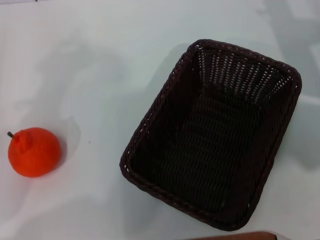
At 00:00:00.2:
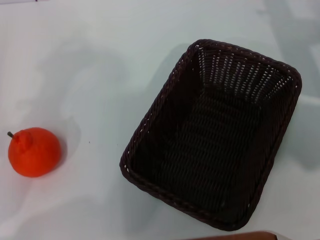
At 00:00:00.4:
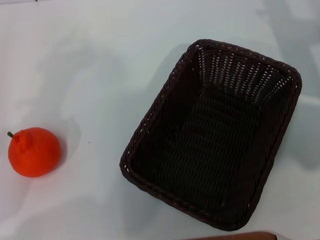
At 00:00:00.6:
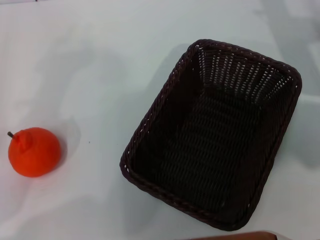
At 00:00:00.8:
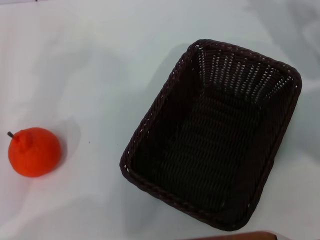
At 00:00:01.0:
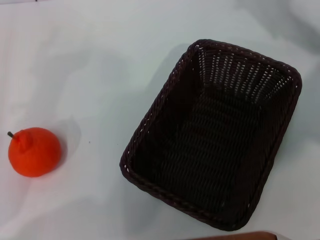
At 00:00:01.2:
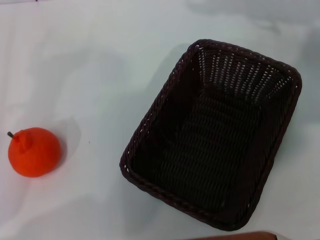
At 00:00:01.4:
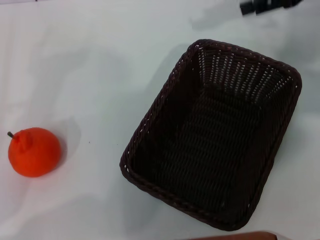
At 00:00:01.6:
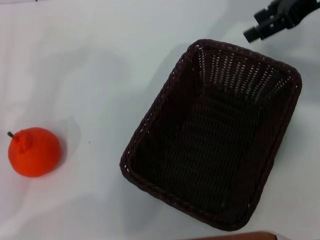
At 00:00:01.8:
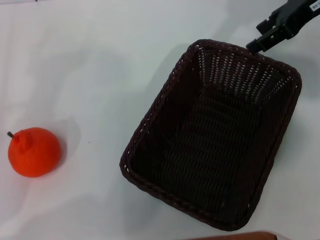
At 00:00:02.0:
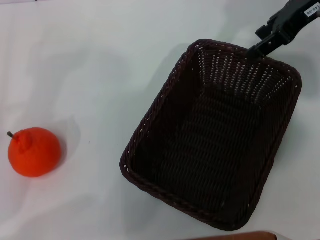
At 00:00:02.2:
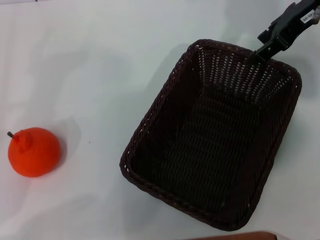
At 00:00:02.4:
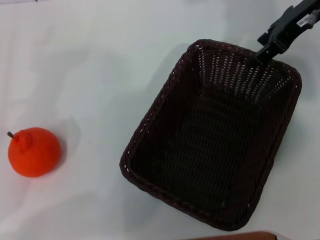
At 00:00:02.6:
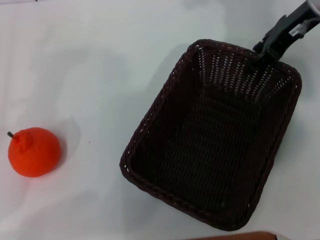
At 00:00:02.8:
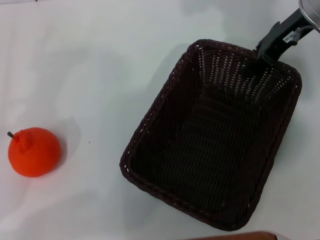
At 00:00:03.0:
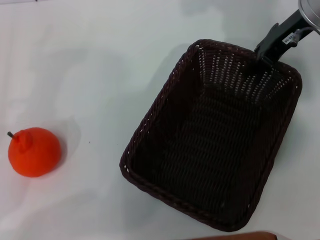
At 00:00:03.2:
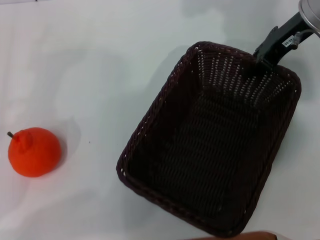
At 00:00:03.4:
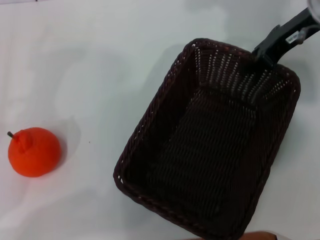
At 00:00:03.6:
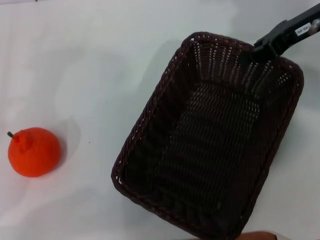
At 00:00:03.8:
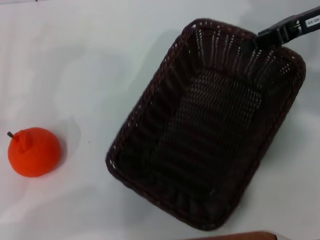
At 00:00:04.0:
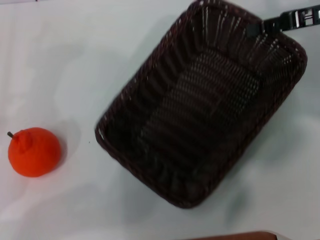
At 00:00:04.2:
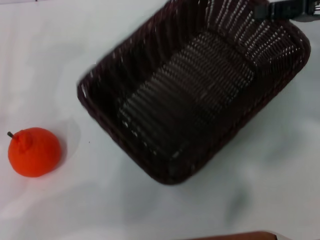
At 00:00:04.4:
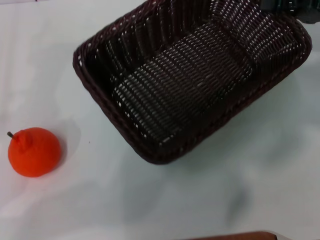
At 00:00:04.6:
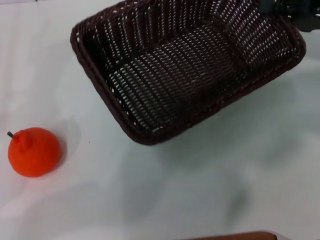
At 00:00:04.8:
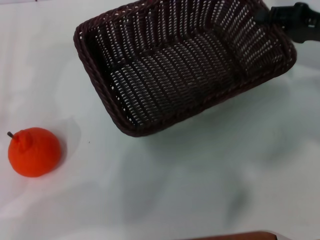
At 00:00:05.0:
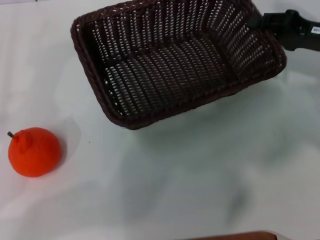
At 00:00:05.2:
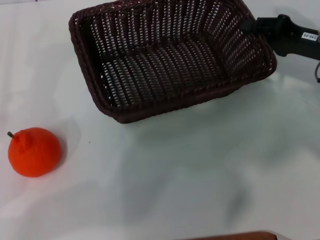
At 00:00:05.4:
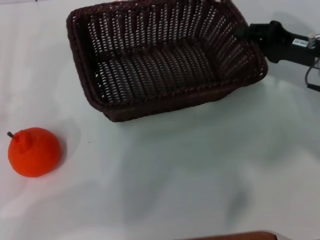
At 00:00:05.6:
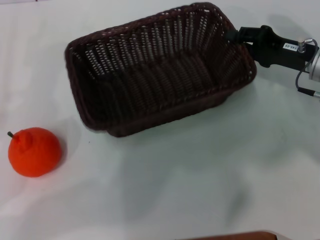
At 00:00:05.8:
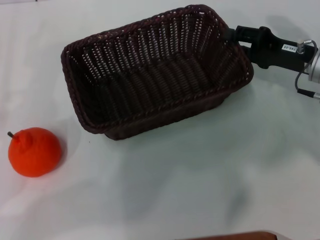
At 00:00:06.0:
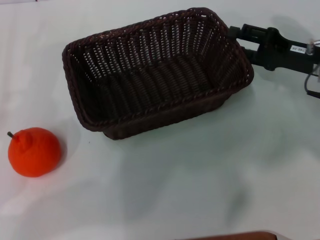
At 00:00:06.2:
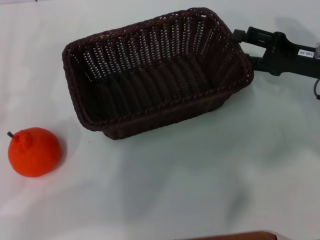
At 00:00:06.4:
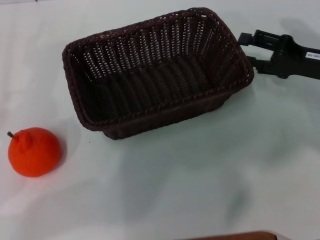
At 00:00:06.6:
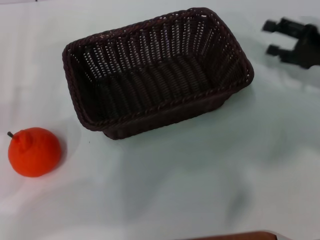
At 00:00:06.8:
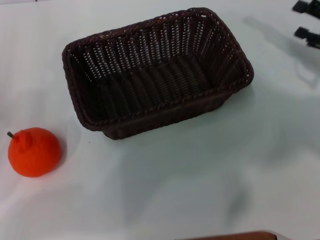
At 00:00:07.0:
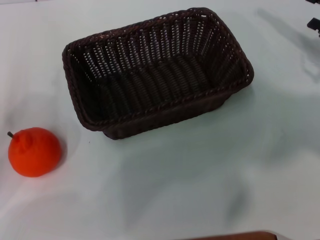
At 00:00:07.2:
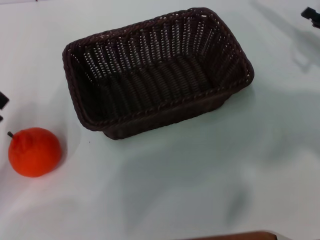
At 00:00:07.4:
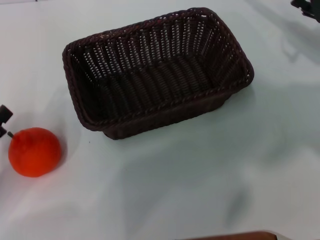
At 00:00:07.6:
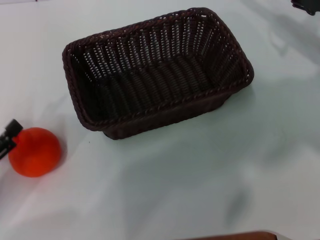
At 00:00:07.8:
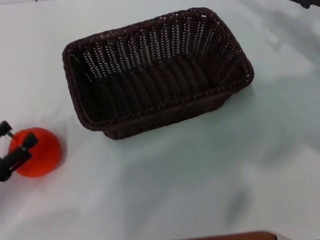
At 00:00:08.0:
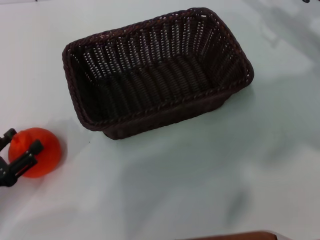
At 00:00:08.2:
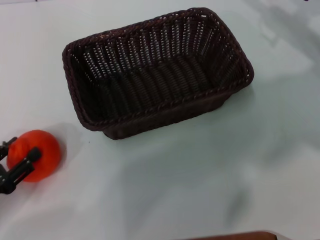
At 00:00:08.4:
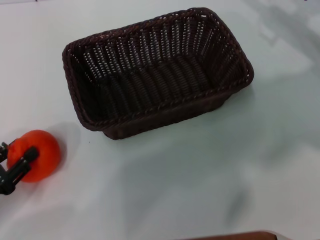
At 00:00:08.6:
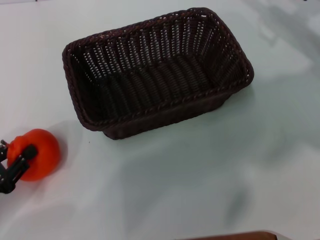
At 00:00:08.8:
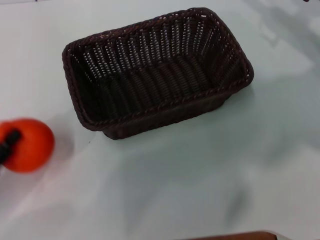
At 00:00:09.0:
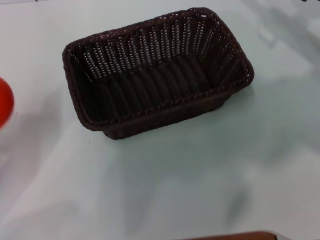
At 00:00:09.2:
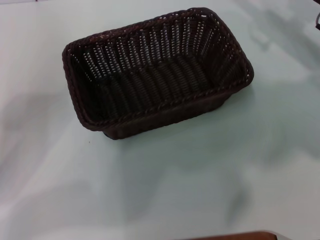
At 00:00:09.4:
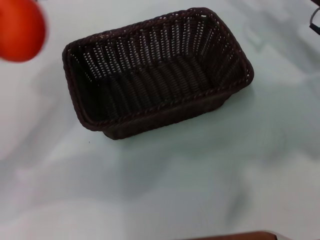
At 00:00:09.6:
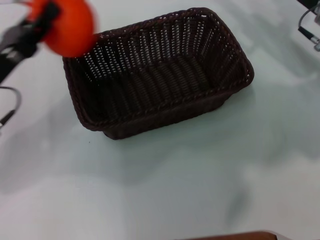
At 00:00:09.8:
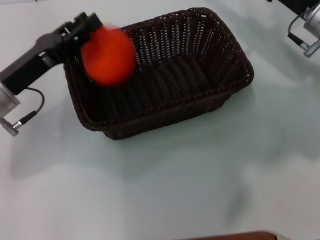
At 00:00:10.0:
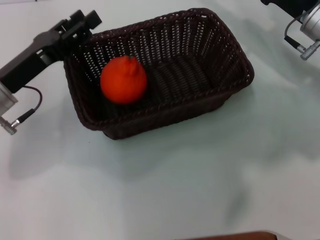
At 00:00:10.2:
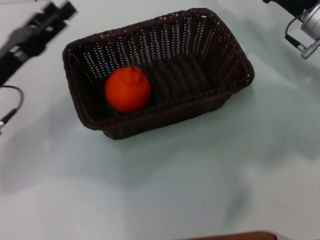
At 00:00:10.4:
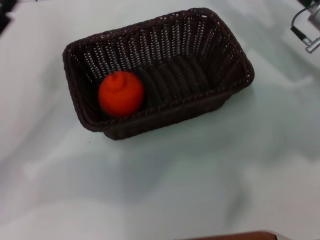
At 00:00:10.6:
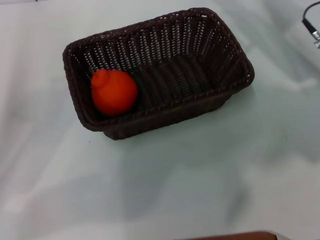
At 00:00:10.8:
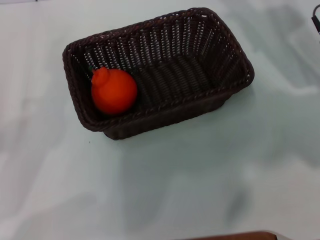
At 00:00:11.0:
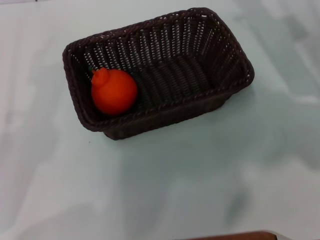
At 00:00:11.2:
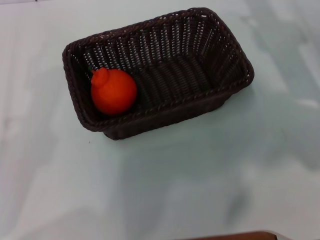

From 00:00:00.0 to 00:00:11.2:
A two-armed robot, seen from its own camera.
Task of the whole recording: the right gripper pick up the black basket and place it horizontally in the middle of the table, the left gripper pick up the orange and place it into the black basket.
Step, from 00:00:00.0 to 00:00:04.2: Pick up the dark basket with the right gripper.
Step, from 00:00:04.4 to 00:00:06.4: Place the dark basket in the center of view with the right gripper.
Step, from 00:00:06.6 to 00:00:08.8: Pick up the orange with the left gripper.
Step, from 00:00:09.0 to 00:00:10.2: Place the orange into the dark basket with the left gripper.
From 00:00:00.0 to 00:00:01.6: The right gripper moves upward, some 15 cm.
From 00:00:01.6 to 00:00:03.2: The right gripper shifts roughly 5 cm downward, and closes its fingers.
From 00:00:03.2 to 00:00:04.8: The right gripper is displaced to the right, downward and backward by about 10 cm.
From 00:00:04.8 to 00:00:06.4: The right gripper opens.
From 00:00:06.4 to 00:00:08.0: The right gripper heads forward, covering some 5 cm. The left gripper moves backward and downward, approximately 10 cm.
From 00:00:08.0 to 00:00:09.6: The left gripper heads forward, upward and to the right, covering about 15 cm, and closes its fingers.
From 00:00:09.6 to 00:00:11.2: The left gripper goes about 15 cm backward and to the left, and opens.
